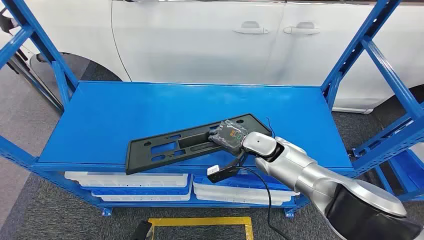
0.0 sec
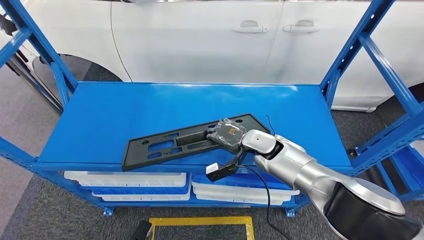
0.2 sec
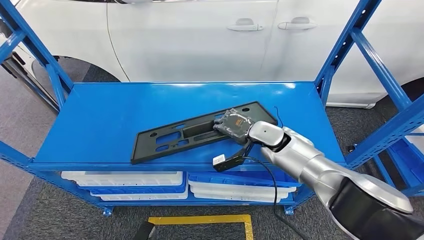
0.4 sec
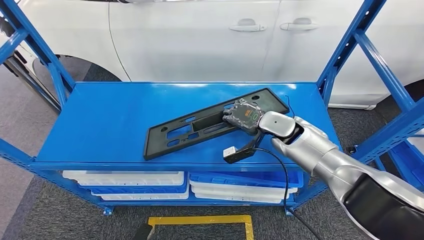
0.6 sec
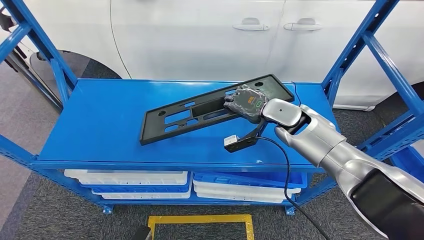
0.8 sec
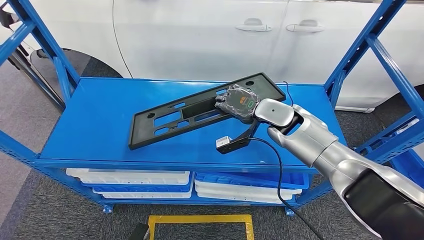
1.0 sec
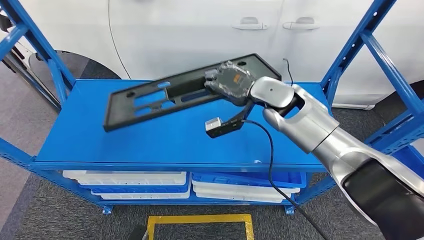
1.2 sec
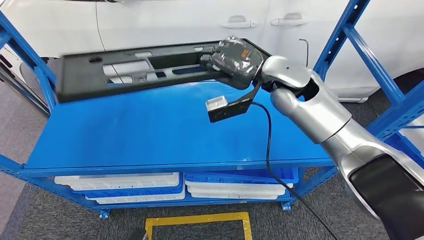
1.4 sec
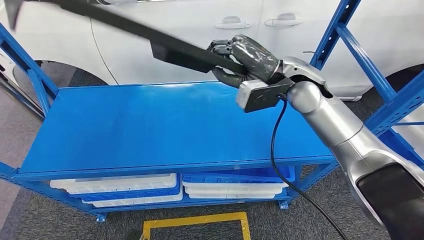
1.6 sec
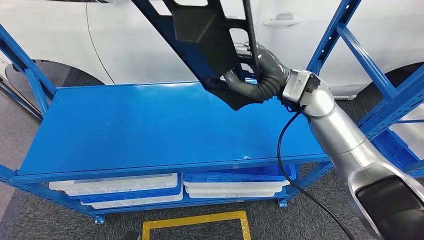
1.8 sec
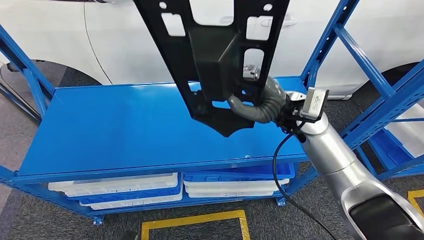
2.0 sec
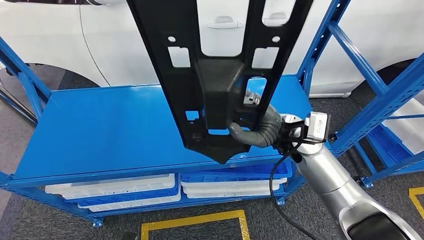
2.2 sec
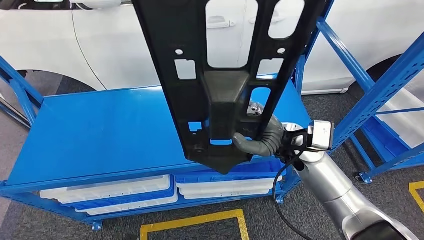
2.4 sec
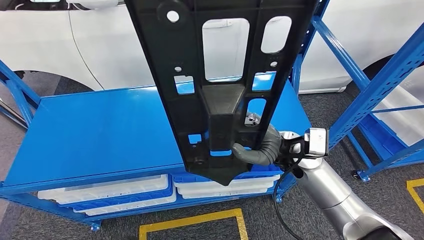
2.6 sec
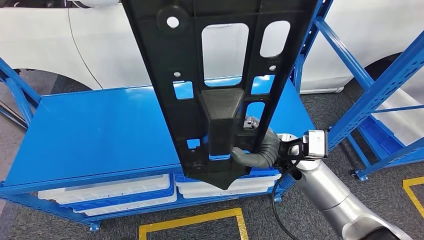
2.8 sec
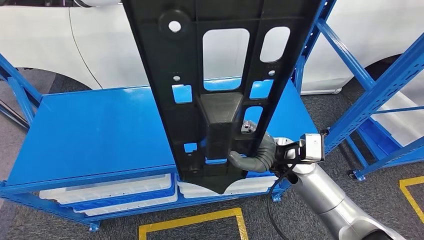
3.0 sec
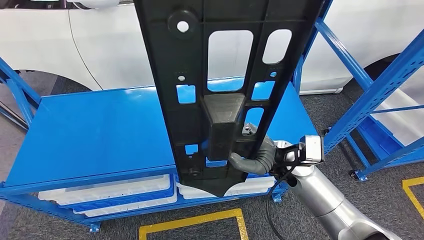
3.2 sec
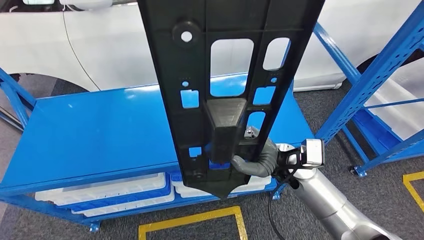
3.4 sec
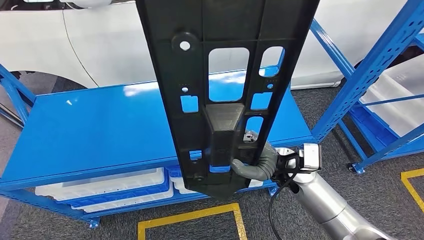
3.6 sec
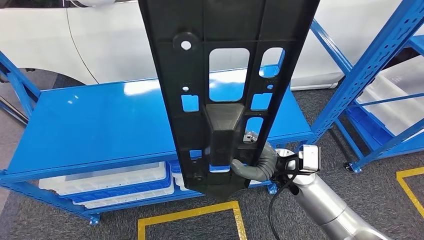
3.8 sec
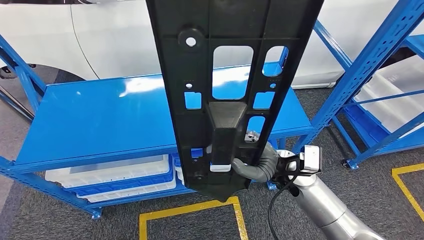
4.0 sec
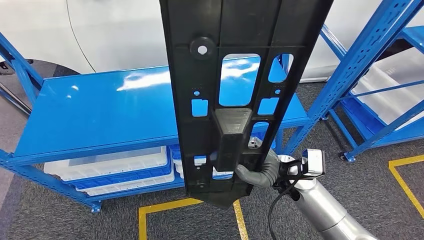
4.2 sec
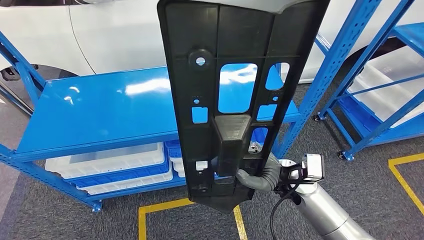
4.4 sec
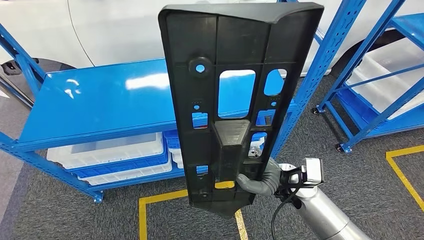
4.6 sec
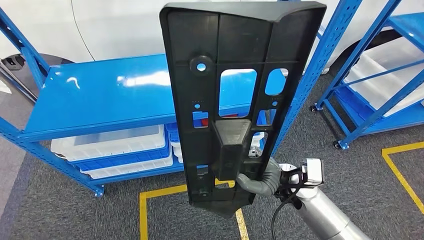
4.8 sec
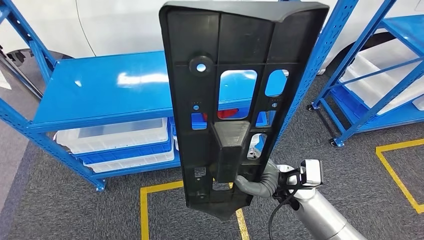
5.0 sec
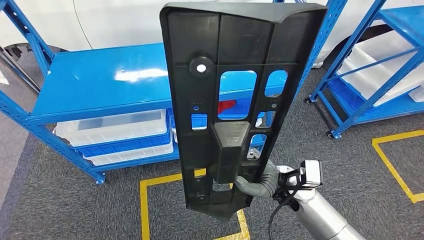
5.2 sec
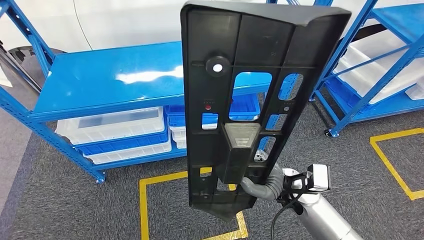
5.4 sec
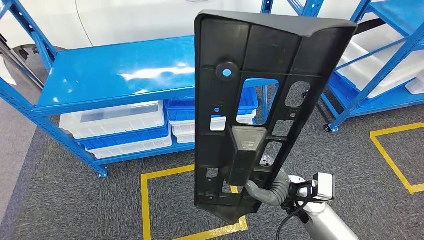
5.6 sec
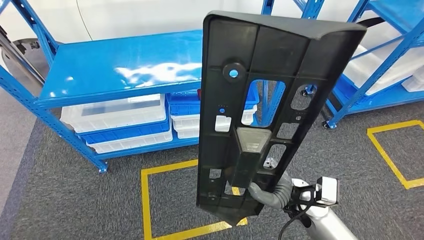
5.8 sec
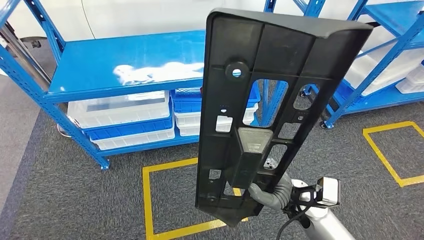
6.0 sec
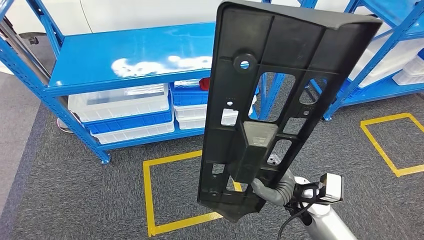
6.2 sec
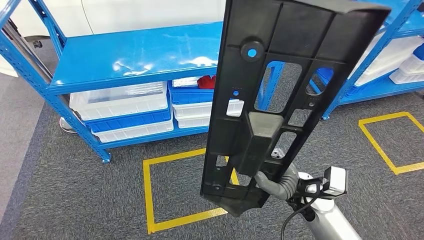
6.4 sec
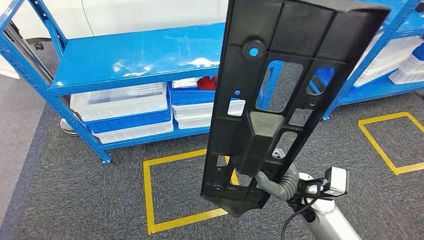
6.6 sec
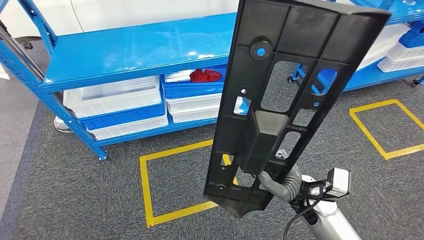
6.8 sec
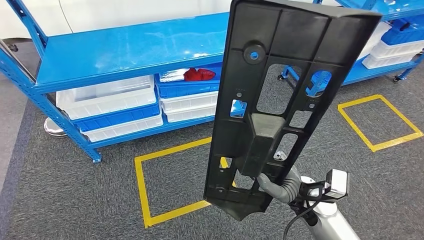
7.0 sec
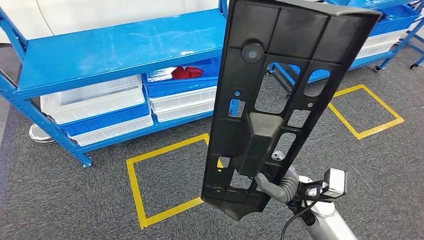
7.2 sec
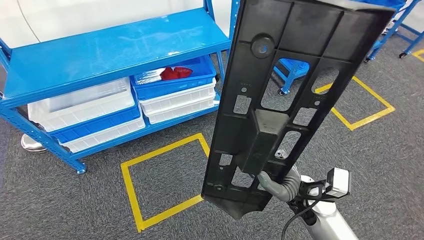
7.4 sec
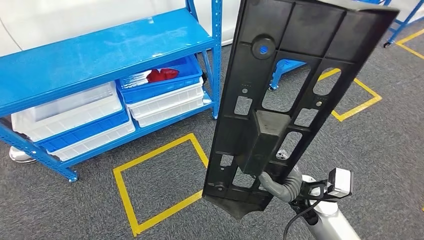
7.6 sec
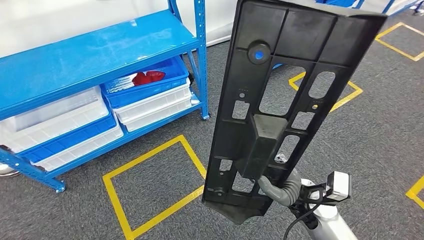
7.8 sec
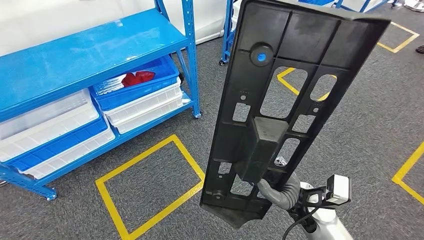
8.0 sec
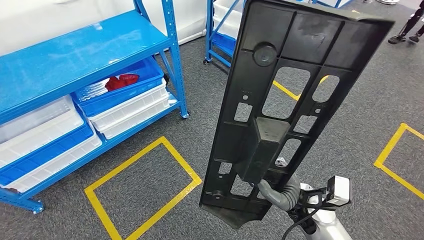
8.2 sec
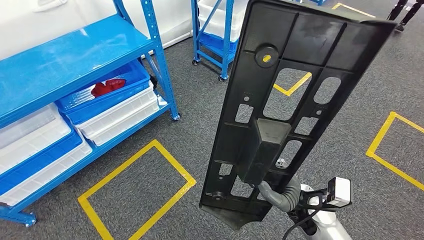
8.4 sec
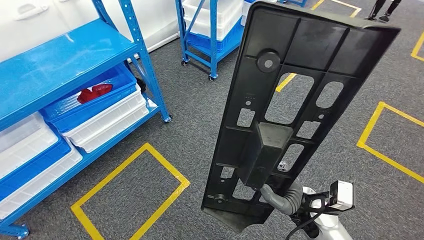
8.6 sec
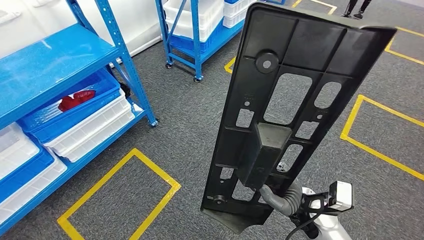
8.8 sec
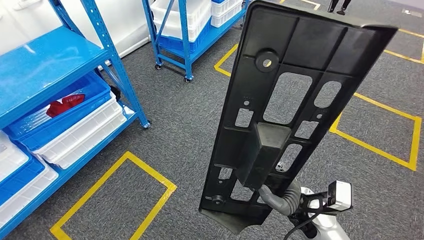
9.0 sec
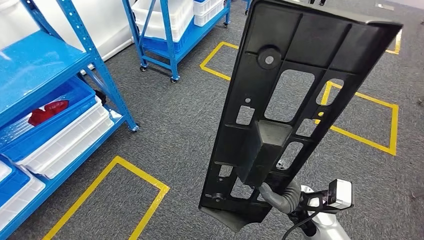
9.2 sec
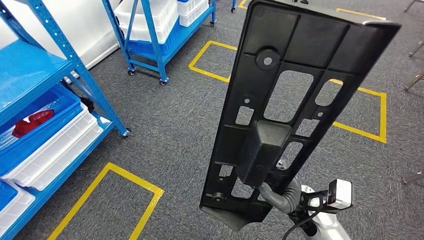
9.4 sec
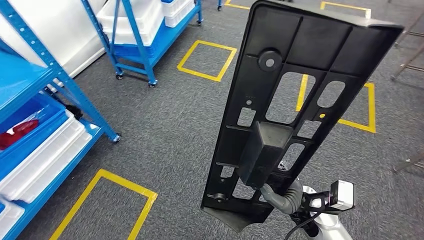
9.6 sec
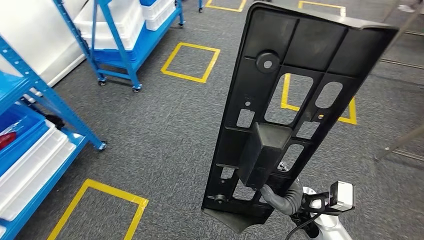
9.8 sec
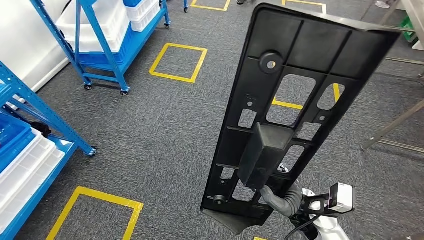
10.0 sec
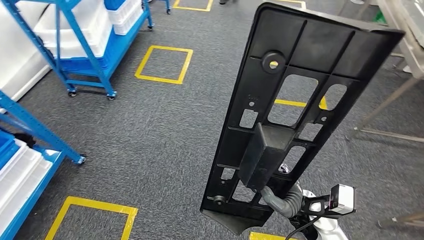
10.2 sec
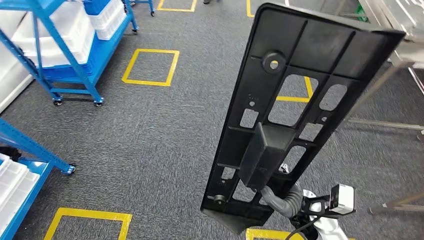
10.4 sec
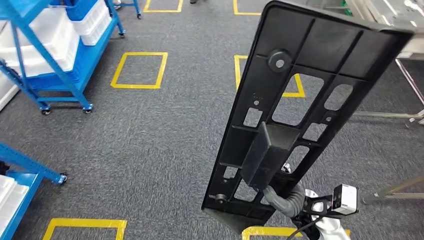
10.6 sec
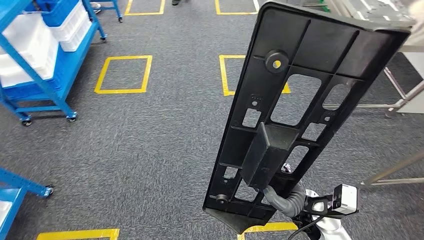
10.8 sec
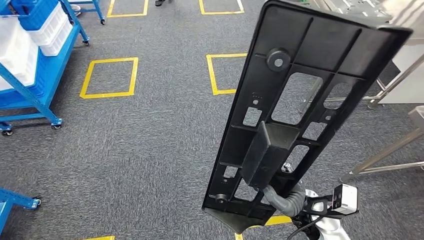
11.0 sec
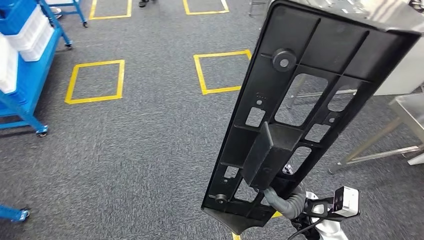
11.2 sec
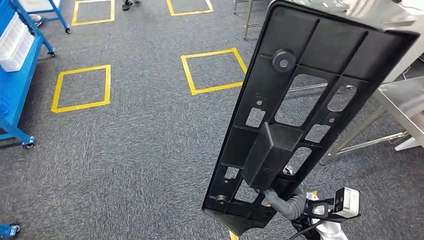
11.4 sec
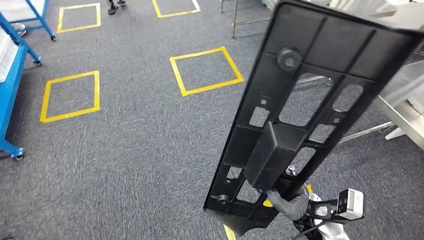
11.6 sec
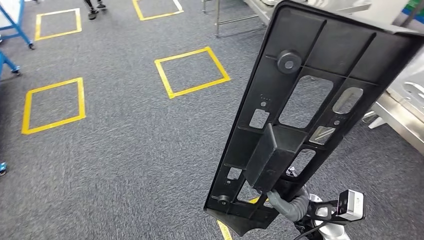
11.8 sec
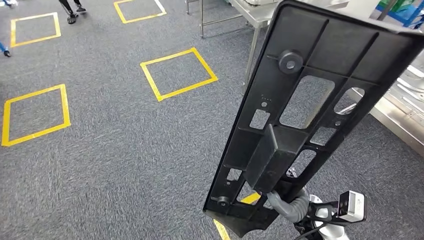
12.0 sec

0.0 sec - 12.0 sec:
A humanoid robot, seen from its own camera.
Step, 0.0 sec - 4.0 sec: Pick up the large material from the shelf.

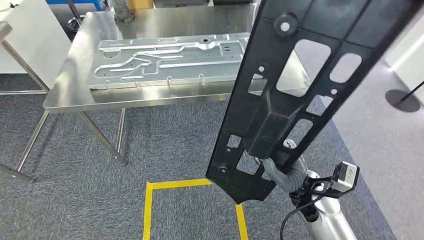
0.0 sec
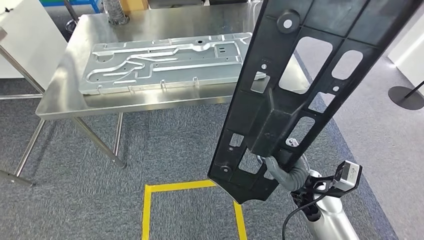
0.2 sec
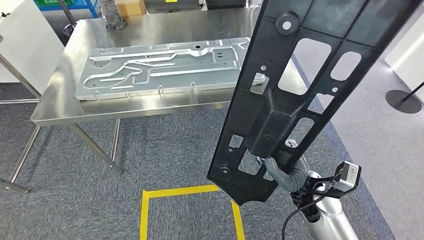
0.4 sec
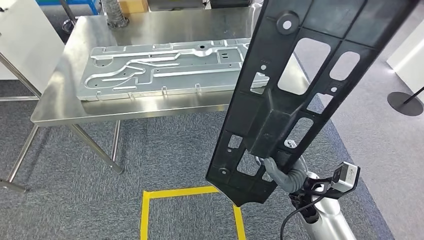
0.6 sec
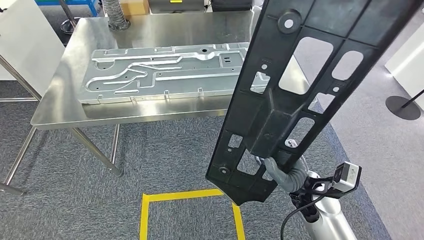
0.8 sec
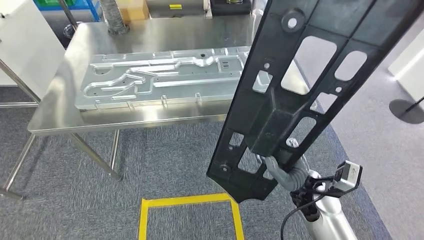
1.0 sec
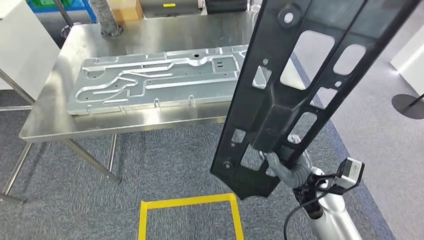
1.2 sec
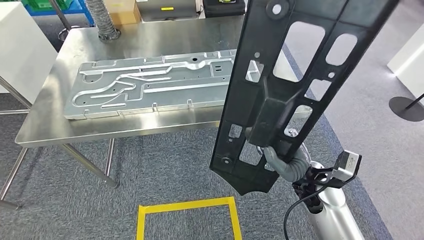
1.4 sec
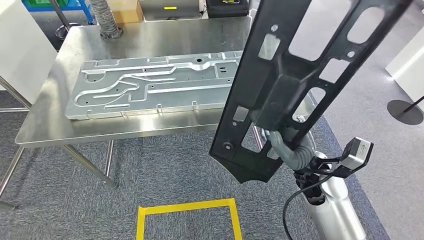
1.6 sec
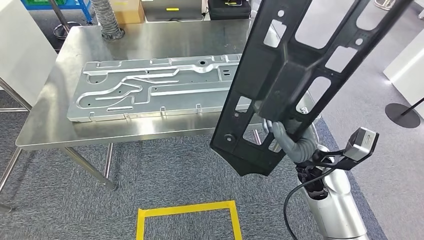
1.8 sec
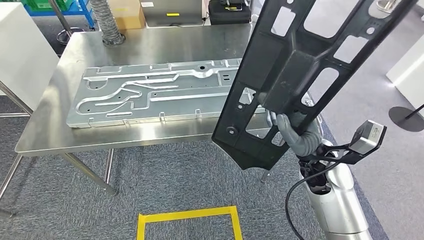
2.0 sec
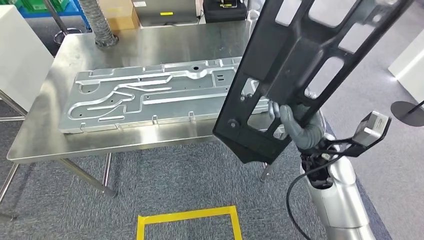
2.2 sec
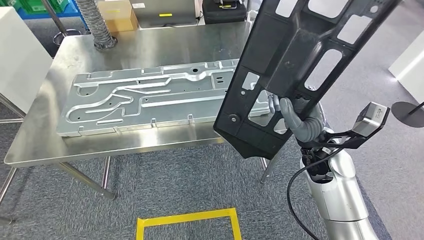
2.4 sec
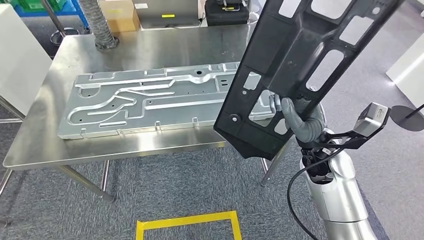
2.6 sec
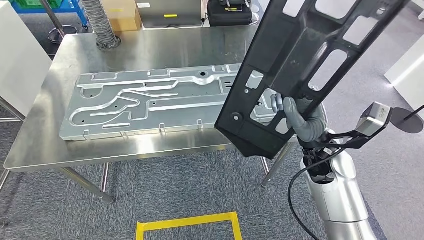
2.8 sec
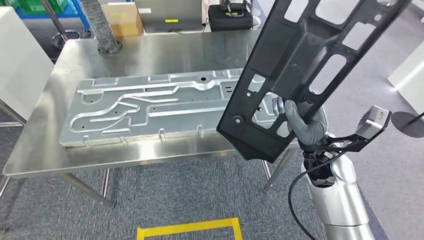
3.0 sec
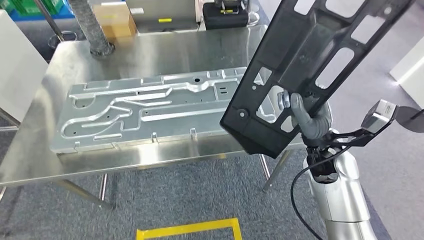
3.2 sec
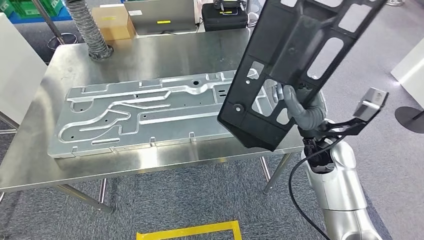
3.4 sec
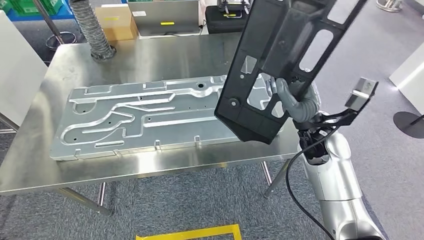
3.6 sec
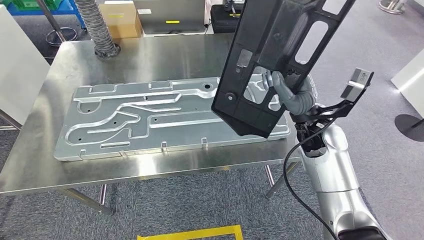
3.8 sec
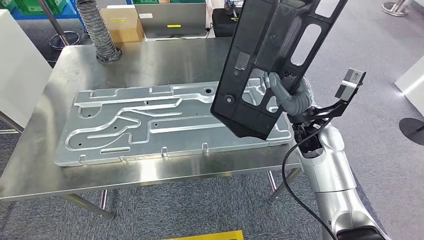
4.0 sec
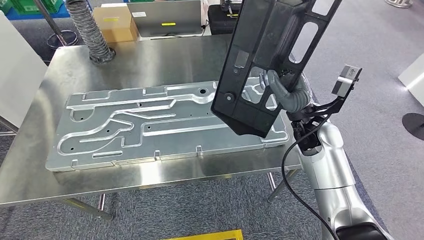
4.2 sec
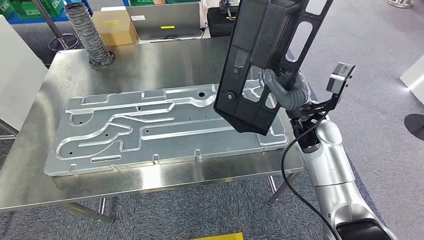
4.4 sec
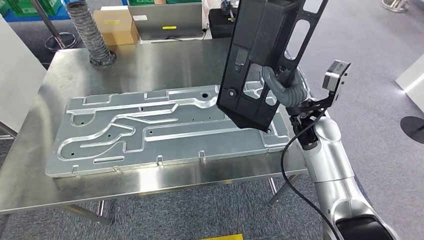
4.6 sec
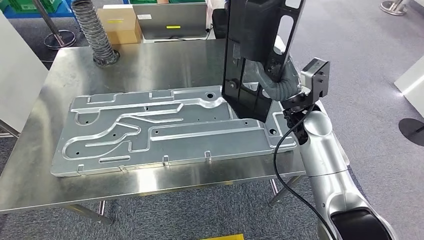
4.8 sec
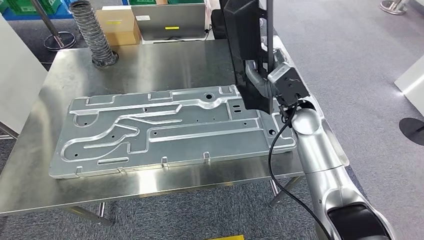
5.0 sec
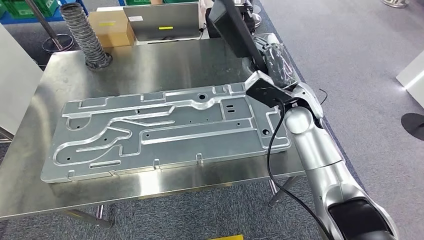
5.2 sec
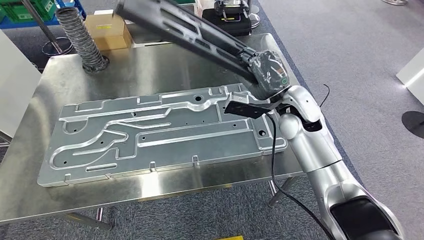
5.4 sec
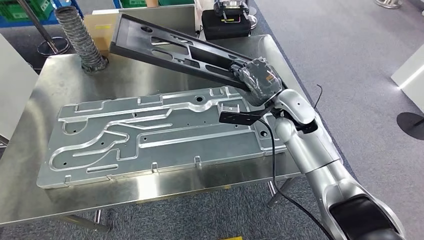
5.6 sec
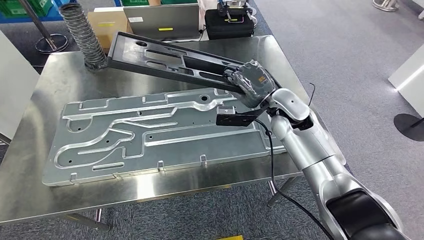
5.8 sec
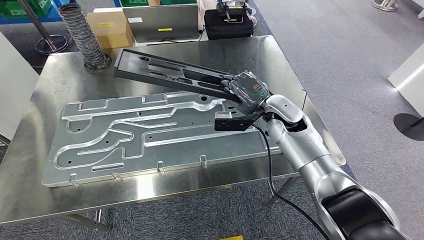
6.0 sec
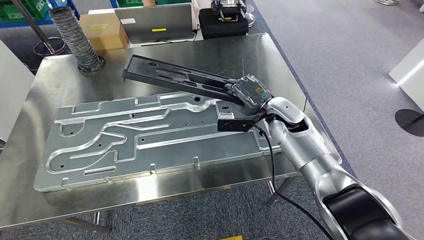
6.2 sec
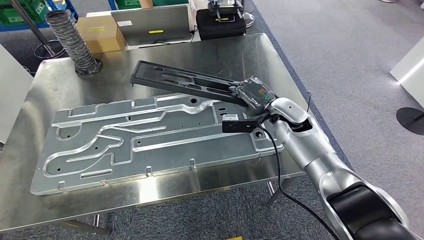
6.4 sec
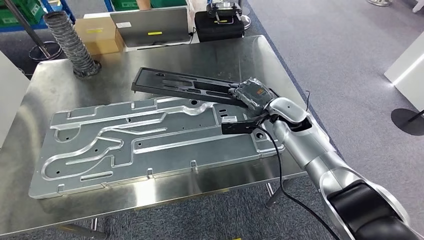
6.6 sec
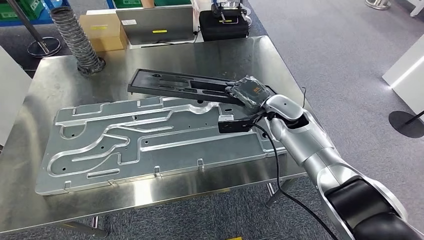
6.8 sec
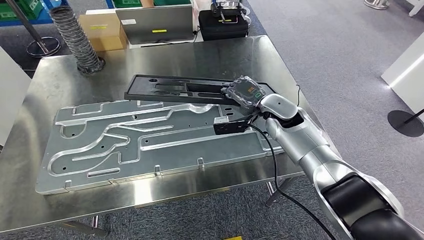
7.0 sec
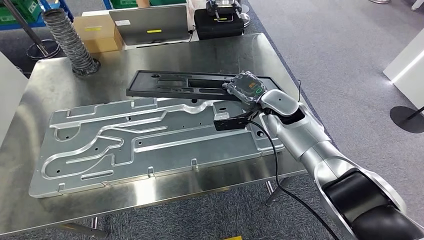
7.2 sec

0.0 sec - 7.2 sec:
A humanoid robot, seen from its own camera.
Step, 0.0 sec - 3.8 sec: Move the large material to the front of the workbench.
